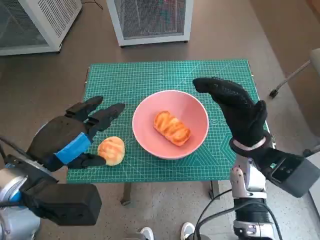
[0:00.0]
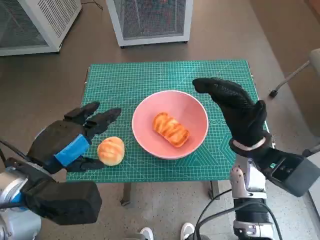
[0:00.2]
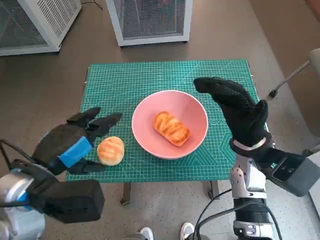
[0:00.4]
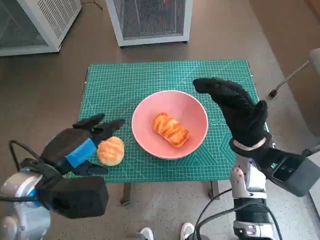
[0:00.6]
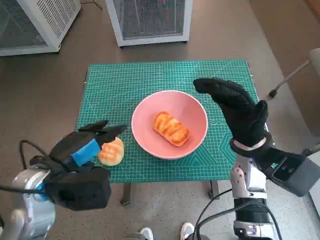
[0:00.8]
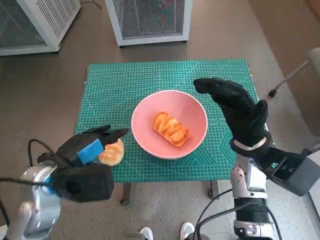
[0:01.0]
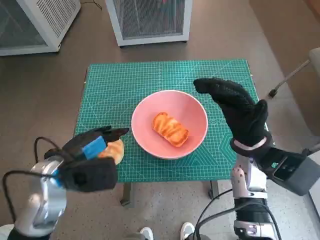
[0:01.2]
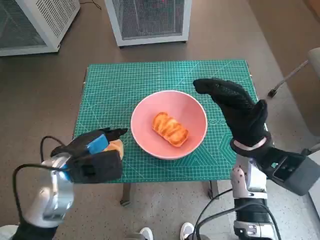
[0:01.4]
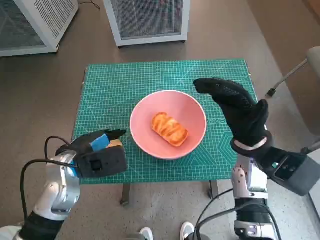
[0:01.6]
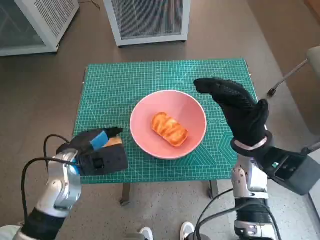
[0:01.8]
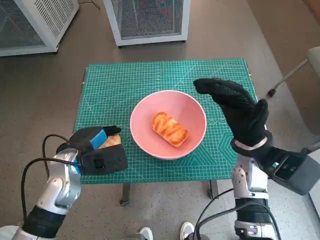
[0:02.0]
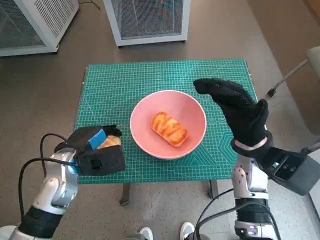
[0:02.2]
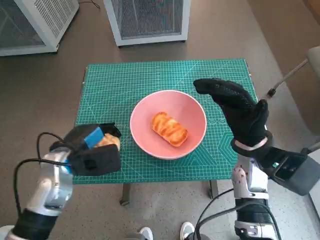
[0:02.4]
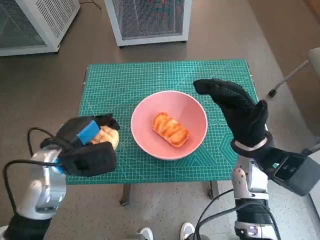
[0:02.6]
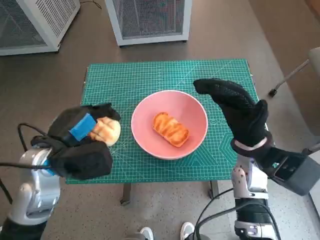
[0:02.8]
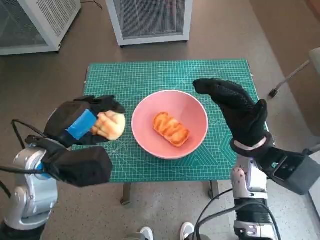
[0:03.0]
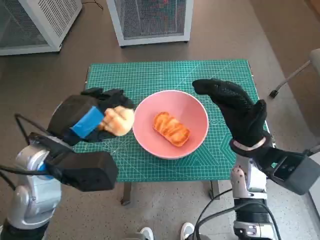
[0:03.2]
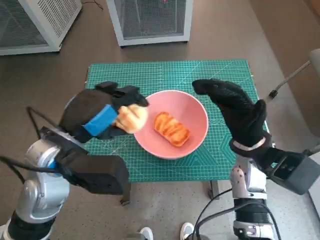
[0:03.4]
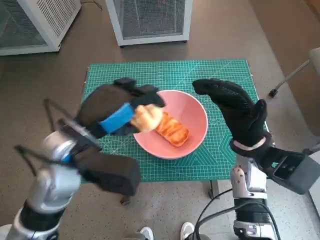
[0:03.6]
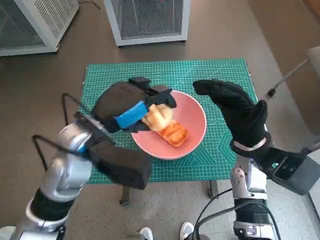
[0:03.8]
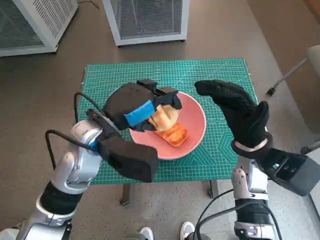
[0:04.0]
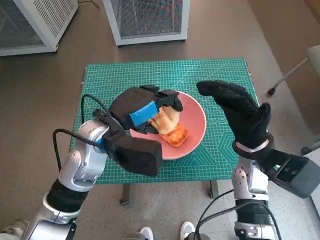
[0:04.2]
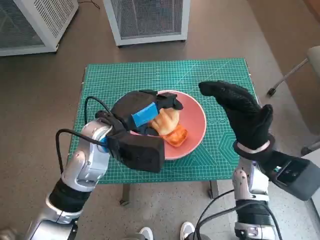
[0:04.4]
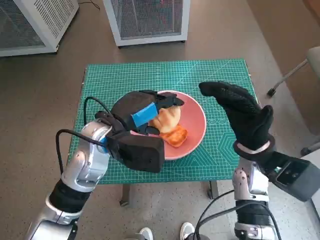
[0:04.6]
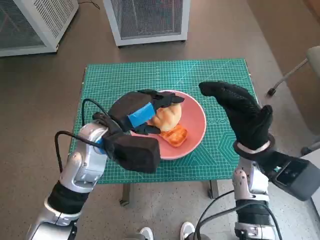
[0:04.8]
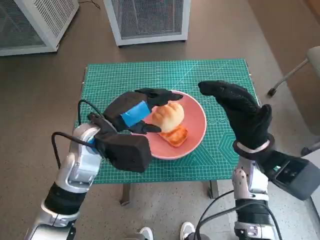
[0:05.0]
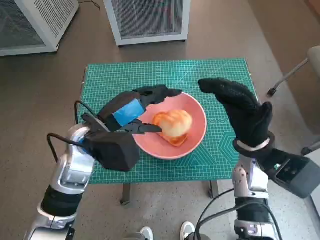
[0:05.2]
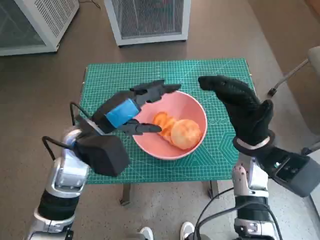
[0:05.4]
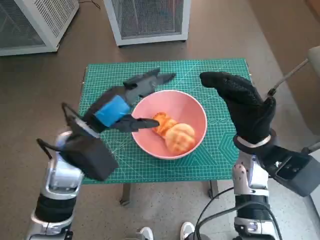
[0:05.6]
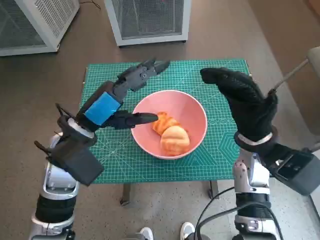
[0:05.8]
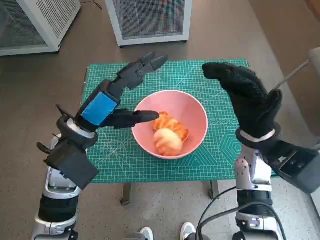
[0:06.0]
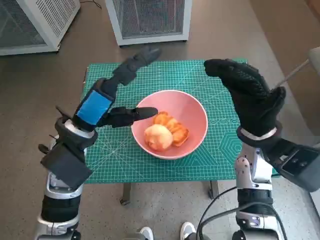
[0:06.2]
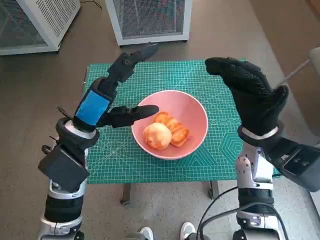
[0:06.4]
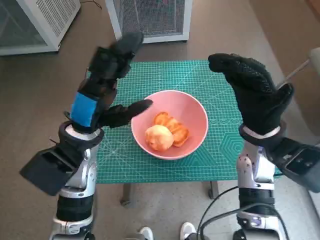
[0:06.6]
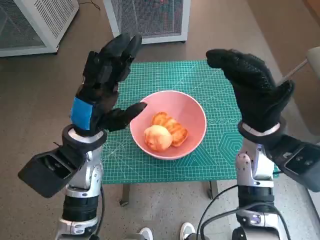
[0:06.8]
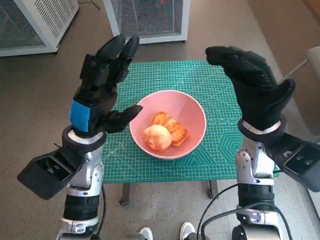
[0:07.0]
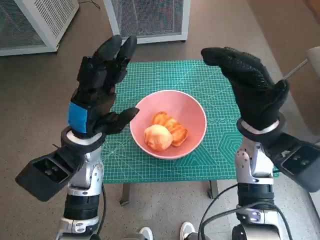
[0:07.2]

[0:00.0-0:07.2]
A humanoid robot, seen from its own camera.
Task of the whole recording: Push the bowl into the center of the table and put the bread into the bowl.
Step, 0:00.0 to 0:02.0: Grasp the round bread with left hand.
Step, 0:02.2 to 0:05.0: Place the round bread in pink bowl with left hand.
0:00.0 to 0:01.4: The left hand travels downward and forward by roughly 10 cm.
0:01.4 to 0:02.8: The hands make only small movements.
0:02.8 to 0:04.4: The left hand travels to the right by some 10 cm.
0:04.4 to 0:05.8: The left hand changes place by approximately 5 cm.

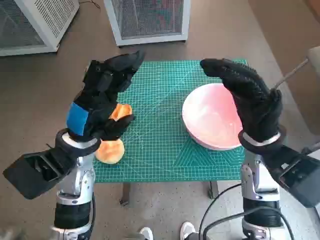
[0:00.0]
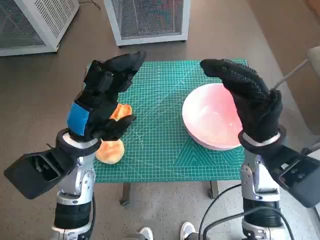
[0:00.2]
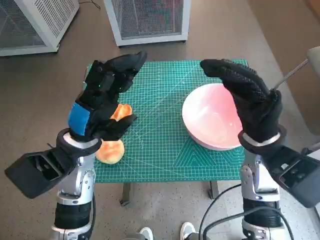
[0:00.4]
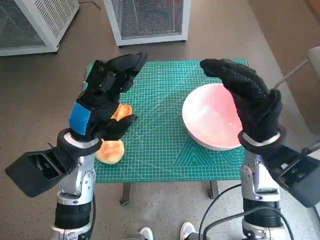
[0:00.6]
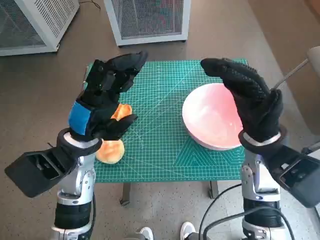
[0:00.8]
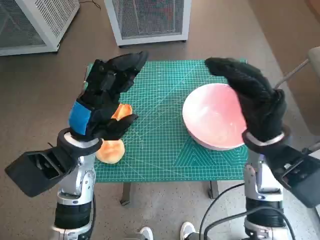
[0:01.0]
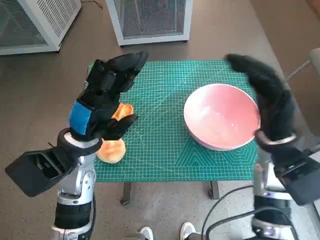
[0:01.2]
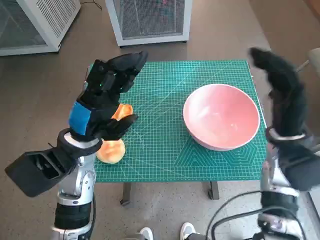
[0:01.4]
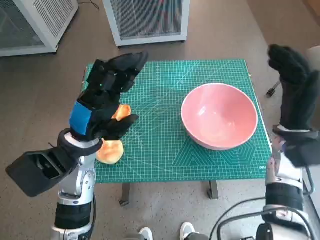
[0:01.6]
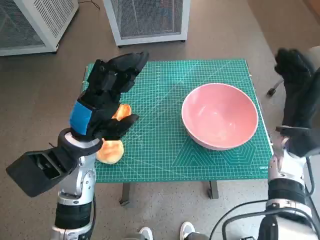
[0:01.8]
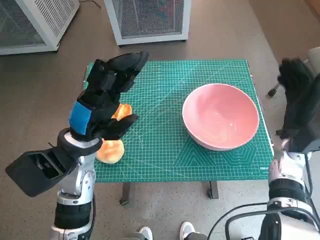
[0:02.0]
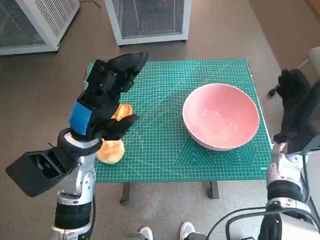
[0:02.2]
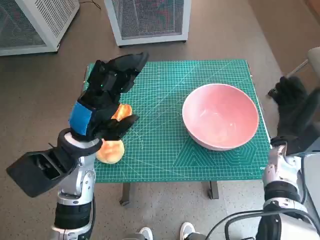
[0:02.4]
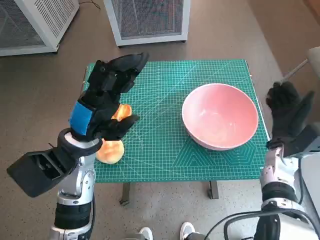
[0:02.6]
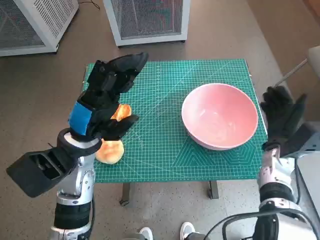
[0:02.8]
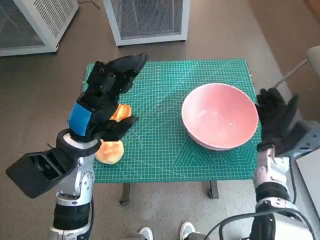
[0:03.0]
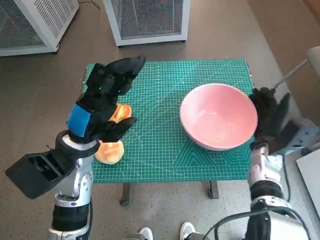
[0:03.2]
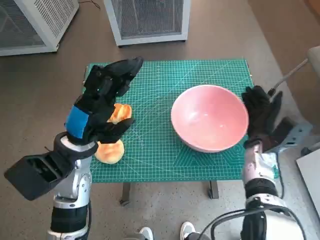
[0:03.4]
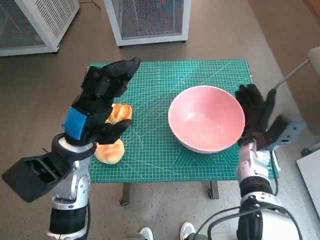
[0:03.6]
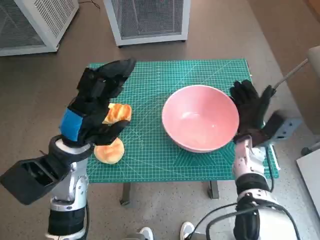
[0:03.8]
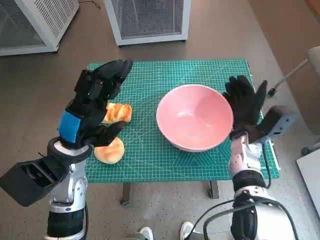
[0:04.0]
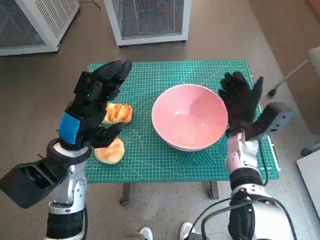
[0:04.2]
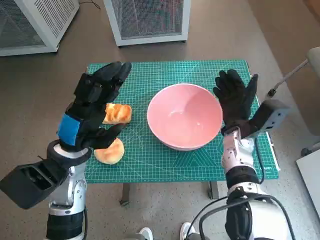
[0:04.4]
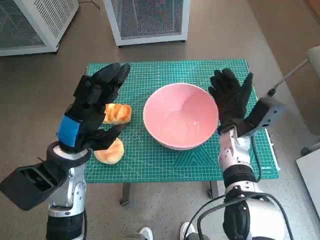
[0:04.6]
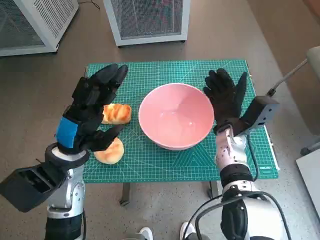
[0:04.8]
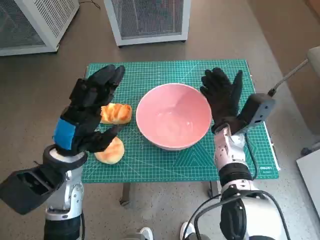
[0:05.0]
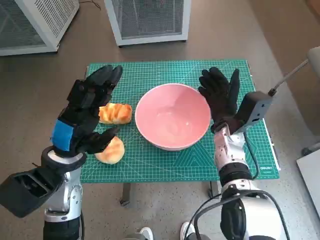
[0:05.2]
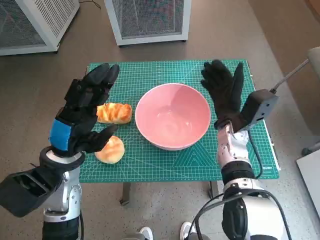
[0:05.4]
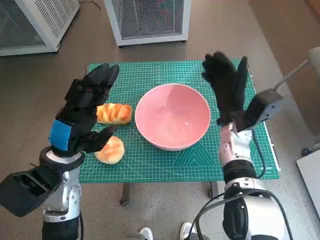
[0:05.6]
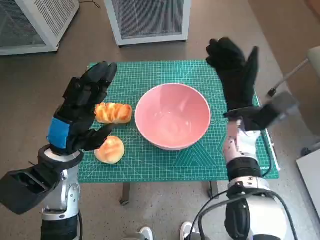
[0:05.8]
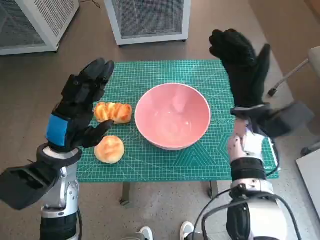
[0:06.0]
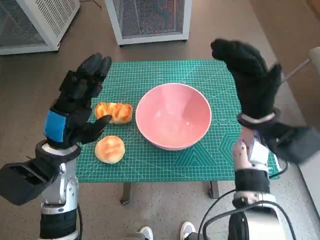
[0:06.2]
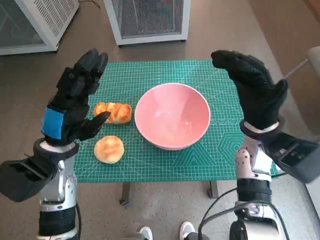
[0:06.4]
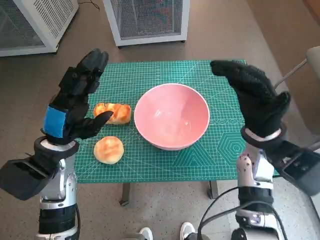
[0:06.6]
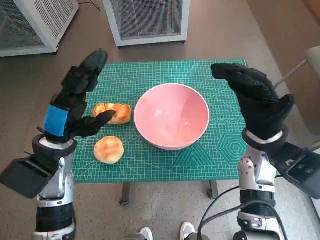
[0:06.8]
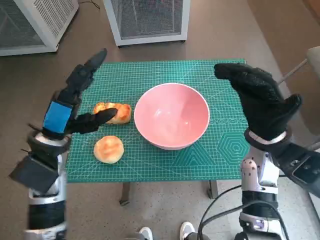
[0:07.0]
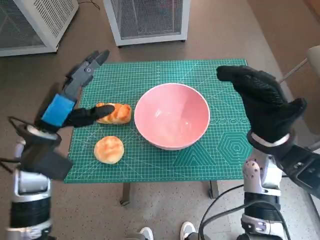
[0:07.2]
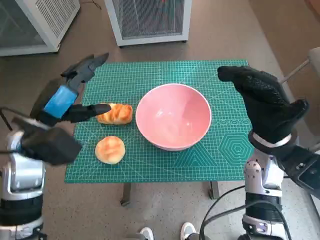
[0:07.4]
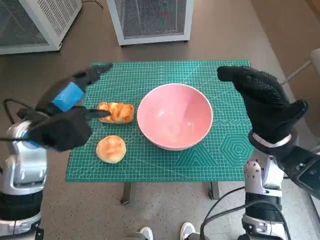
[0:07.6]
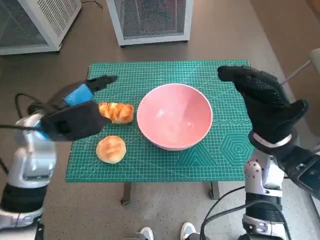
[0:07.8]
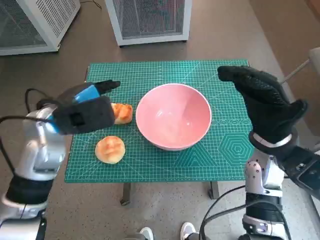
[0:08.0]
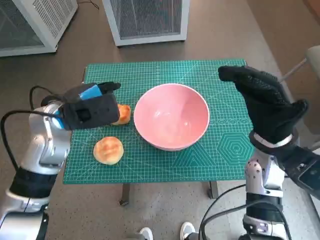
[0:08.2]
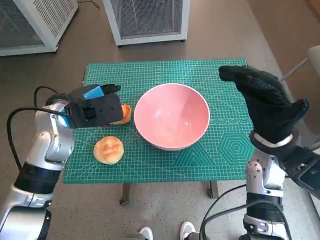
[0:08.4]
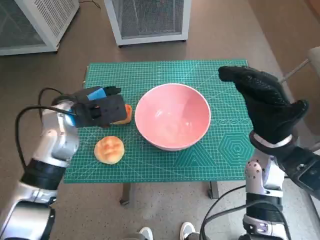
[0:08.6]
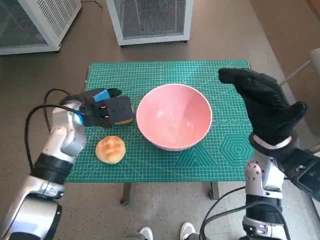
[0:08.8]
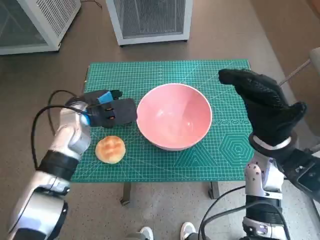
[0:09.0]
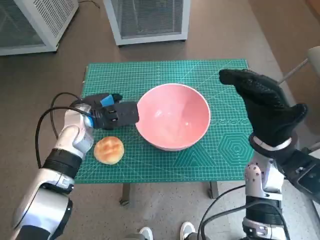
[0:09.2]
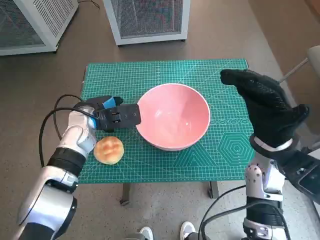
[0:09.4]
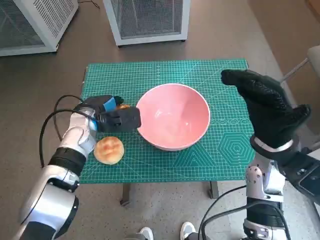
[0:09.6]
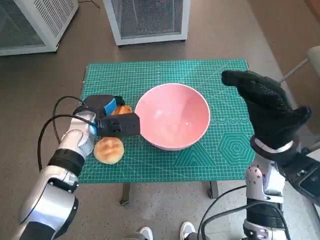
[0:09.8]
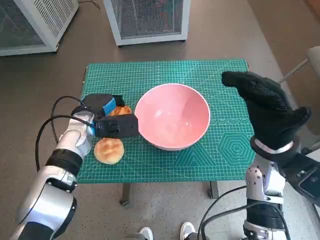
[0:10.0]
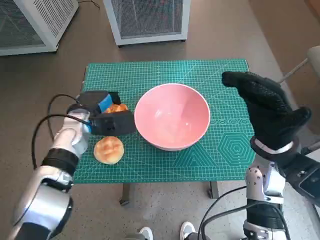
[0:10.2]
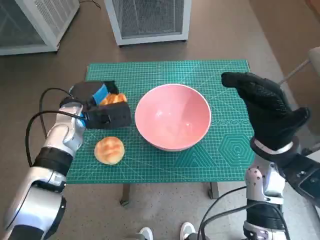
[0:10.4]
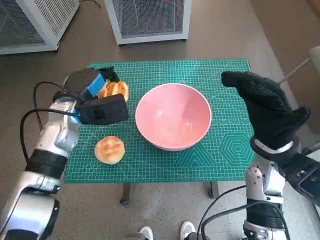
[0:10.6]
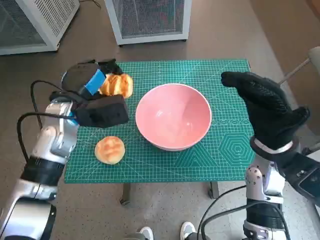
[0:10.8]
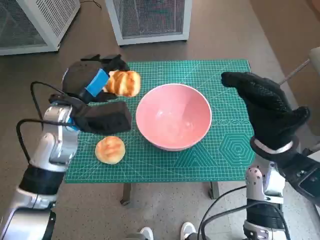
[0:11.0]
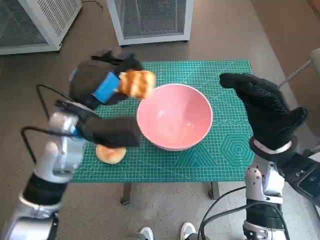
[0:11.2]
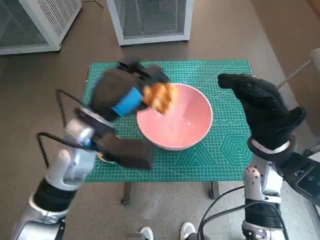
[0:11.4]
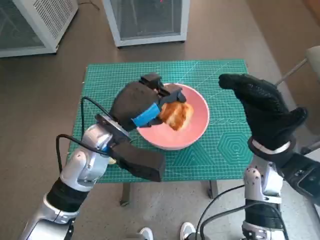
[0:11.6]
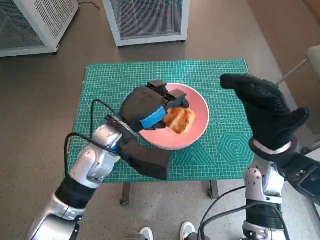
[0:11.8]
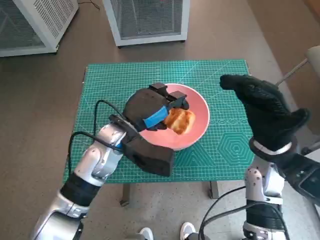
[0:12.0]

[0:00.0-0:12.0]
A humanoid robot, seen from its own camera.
Task of the whole recording: Push the bowl into the center of the table and put the bread into the bowl.
Step, 0:00.0 to 0:05.4: Move the pink bowl to the center of table with right hand.
Step, 0:05.6 to 0:09.6: Grasp the long bread with left hand.
0:01.6 to 0:03.0: The right hand goes approximately 10 cm downward.
0:03.0 to 0:04.4: The right hand goes roughly 10 cm to the left.
0:04.4 to 0:06.0: The right hand shifts some 5 cm upward.
0:06.0 to 0:07.6: The right hand travels backward by about 5 cm. The left hand moves upward, roughly 5 cm.
0:07.6 to 0:09.0: The left hand shifts roughly 5 cm forward.
0:09.0 to 0:10.4: The hands make only small movements.
0:10.4 to 0:12.0: The left hand goes about 10 cm to the right and backward.

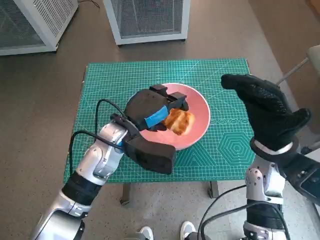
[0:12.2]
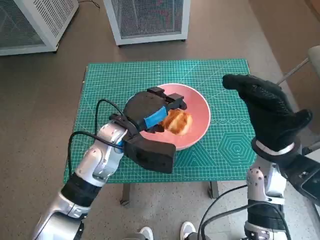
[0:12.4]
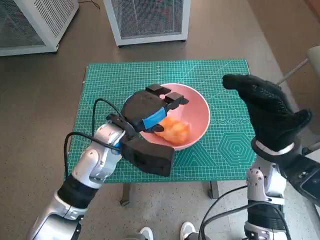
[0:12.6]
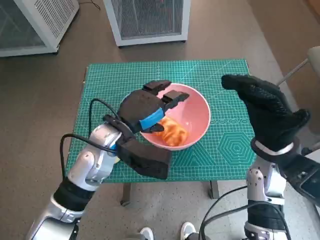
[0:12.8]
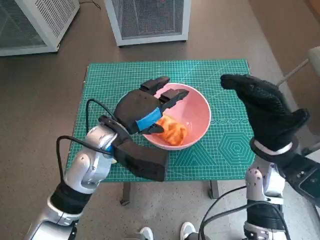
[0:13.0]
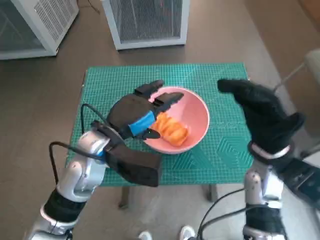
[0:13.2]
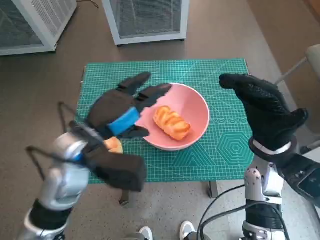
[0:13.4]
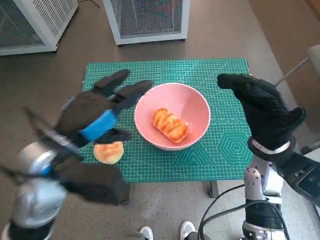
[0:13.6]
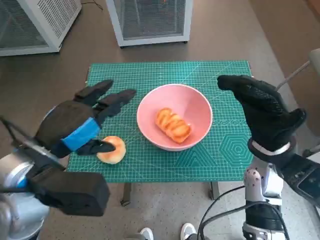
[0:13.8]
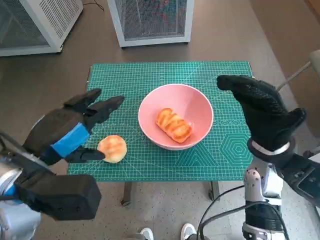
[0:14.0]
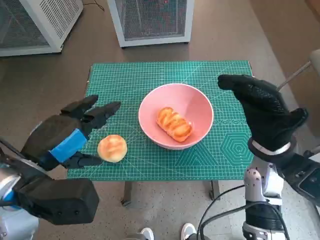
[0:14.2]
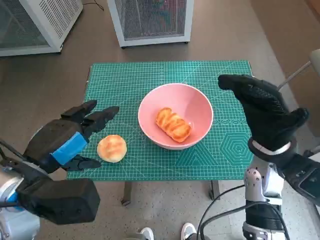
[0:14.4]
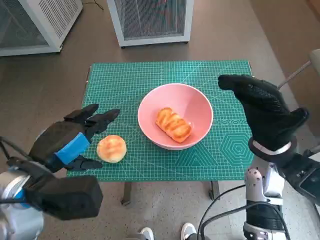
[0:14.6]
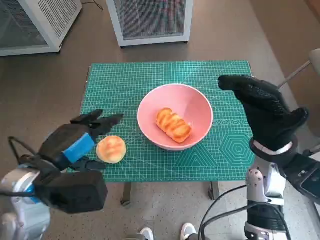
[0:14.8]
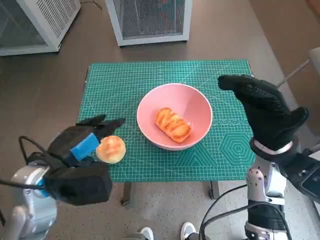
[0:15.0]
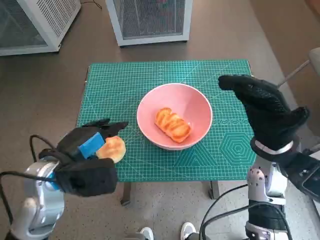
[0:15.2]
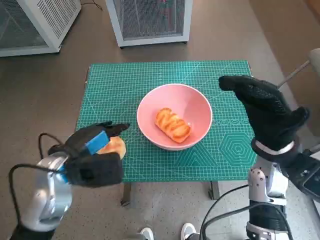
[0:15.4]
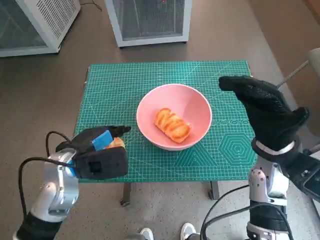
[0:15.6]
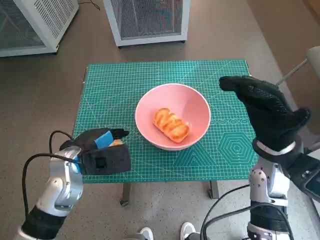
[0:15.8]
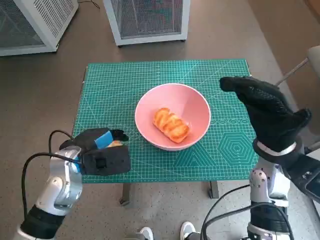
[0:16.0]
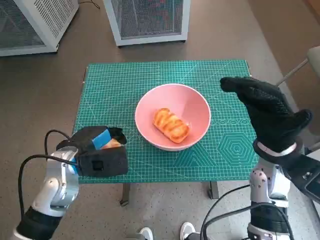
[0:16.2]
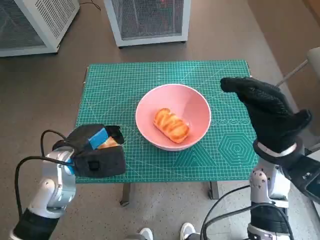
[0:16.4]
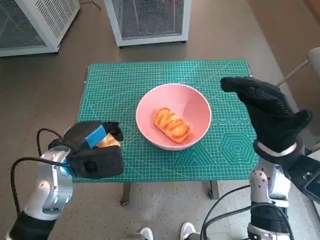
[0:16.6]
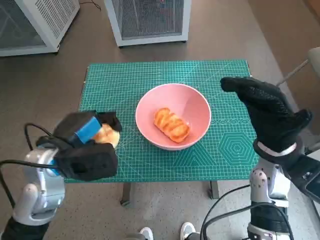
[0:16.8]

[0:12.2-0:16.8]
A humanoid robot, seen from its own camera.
Task of the whole recording: Push the bowl into the center of the table and put the bread into the bowl.
Step, 0:12.8 to 0:15.8: Grasp the round bread with left hand.
0:12.2 to 0:13.8: The left hand is displaced backward, upward and to the left by roughly 15 cm.
0:13.8 to 0:15.2: The left hand travels downward by approximately 5 cm.
